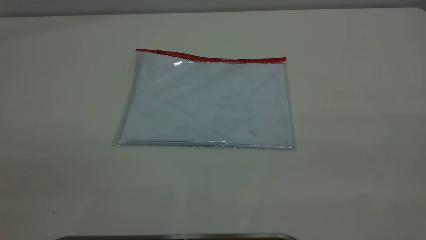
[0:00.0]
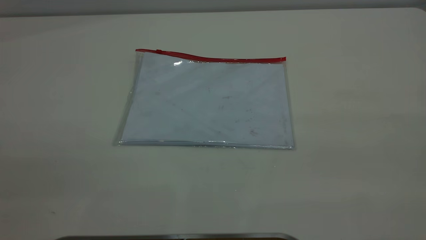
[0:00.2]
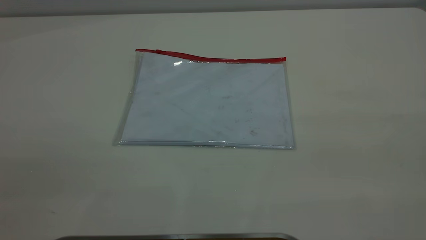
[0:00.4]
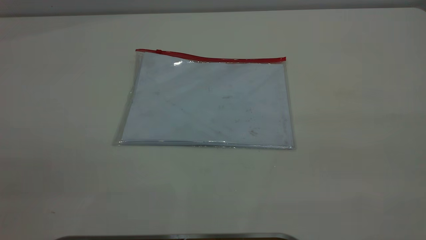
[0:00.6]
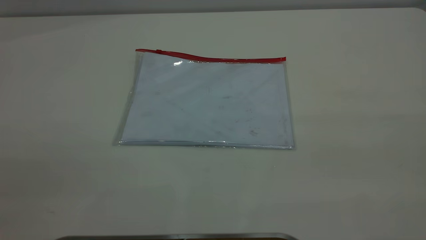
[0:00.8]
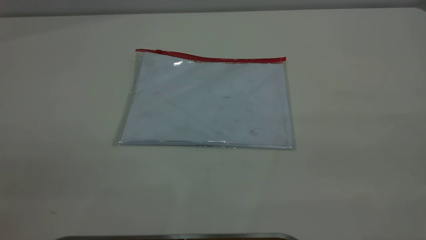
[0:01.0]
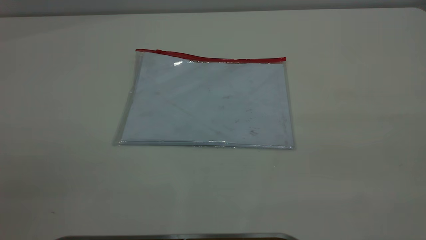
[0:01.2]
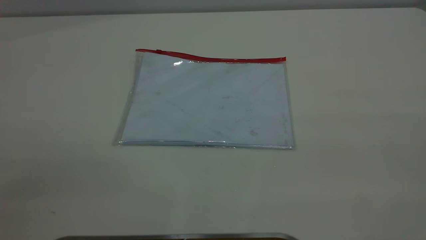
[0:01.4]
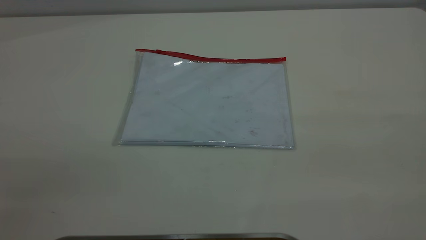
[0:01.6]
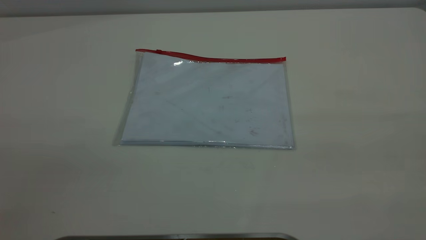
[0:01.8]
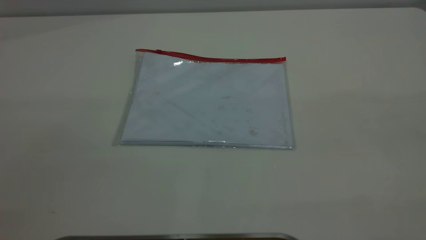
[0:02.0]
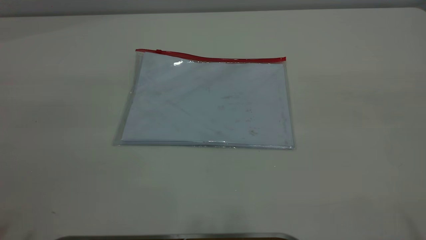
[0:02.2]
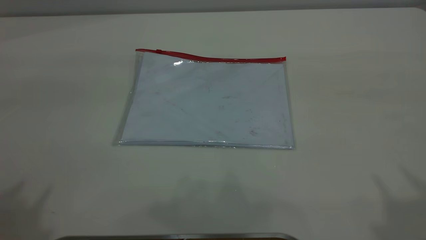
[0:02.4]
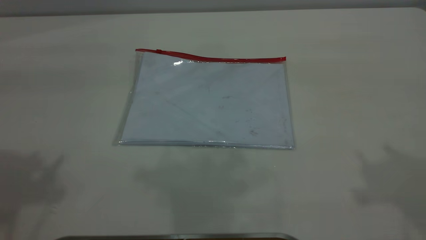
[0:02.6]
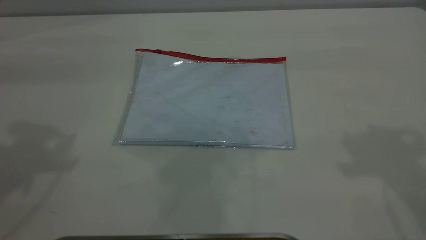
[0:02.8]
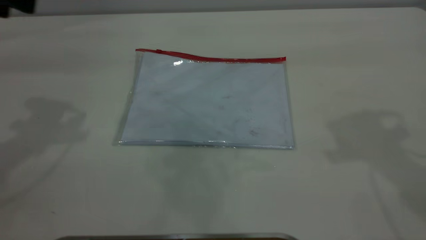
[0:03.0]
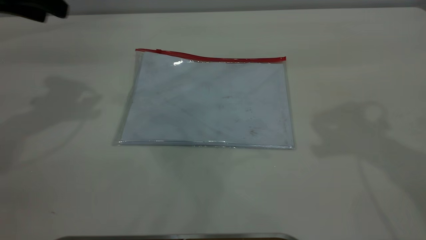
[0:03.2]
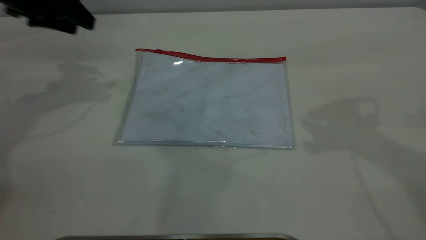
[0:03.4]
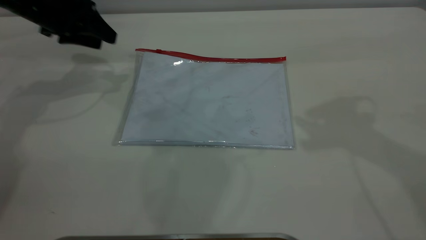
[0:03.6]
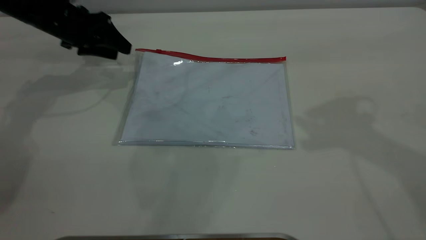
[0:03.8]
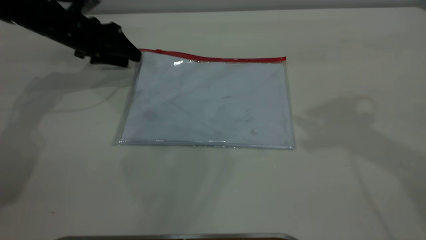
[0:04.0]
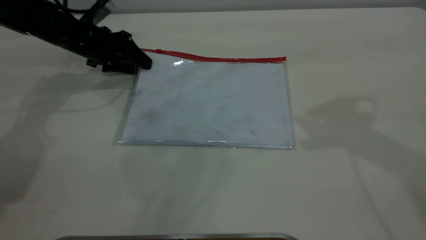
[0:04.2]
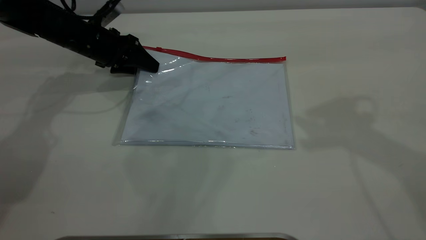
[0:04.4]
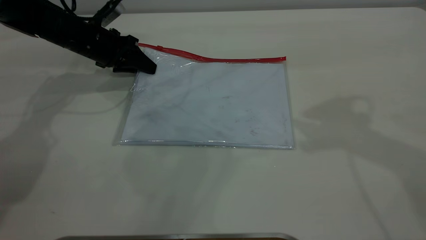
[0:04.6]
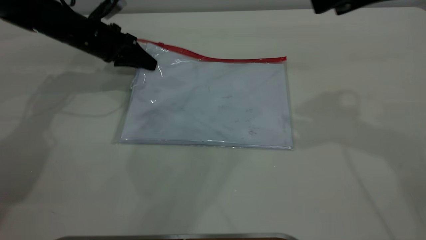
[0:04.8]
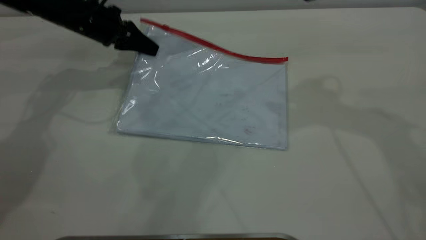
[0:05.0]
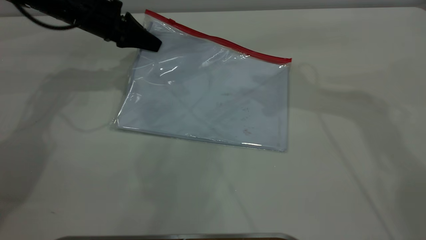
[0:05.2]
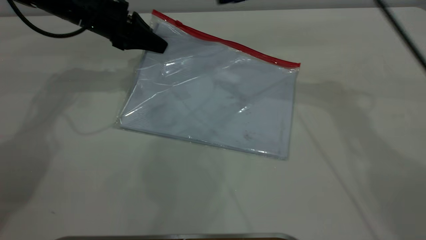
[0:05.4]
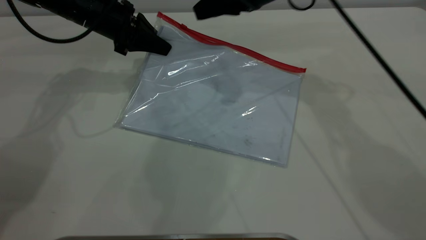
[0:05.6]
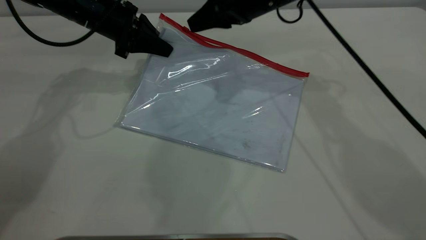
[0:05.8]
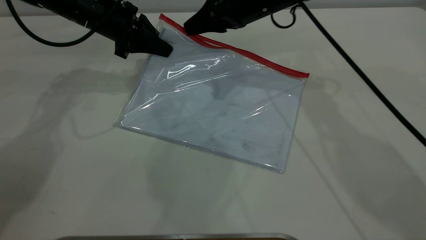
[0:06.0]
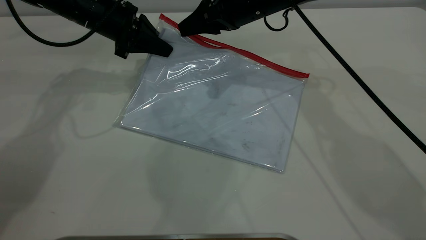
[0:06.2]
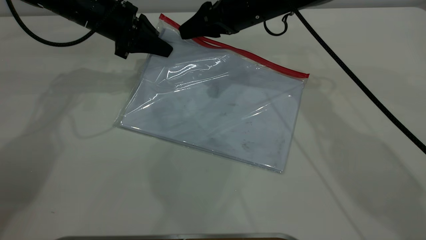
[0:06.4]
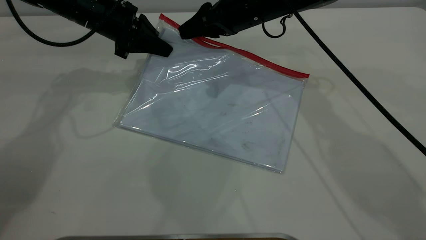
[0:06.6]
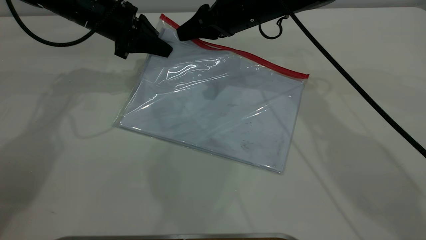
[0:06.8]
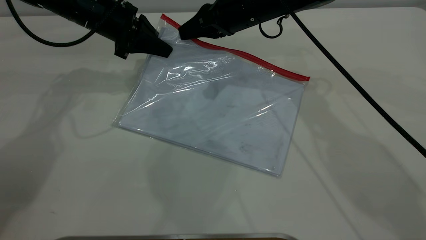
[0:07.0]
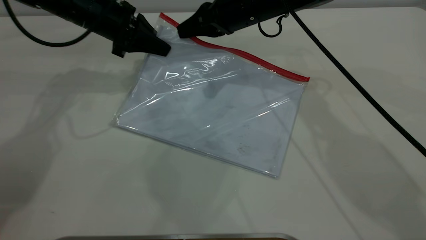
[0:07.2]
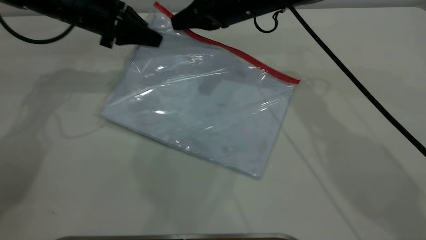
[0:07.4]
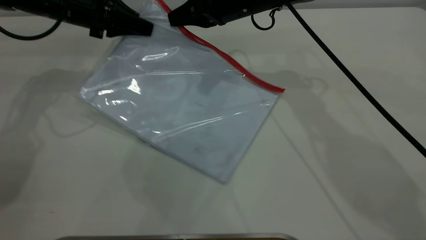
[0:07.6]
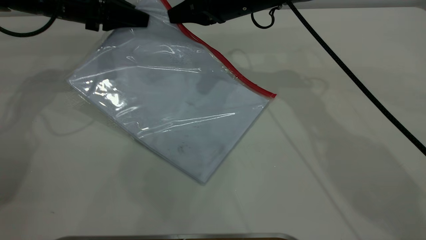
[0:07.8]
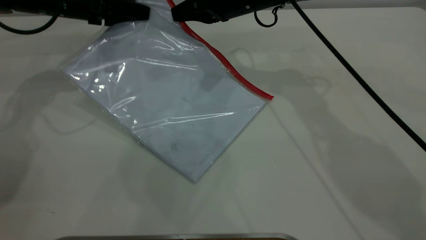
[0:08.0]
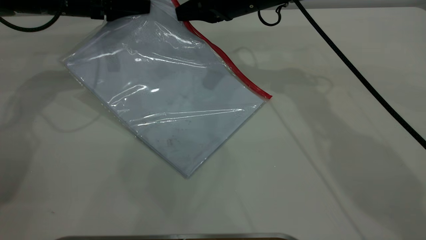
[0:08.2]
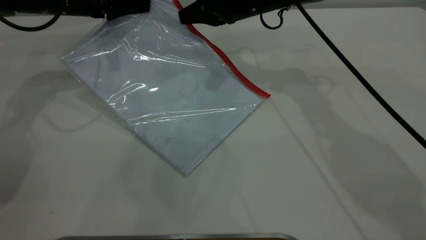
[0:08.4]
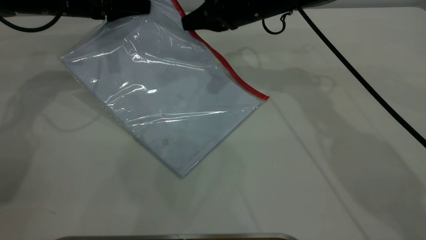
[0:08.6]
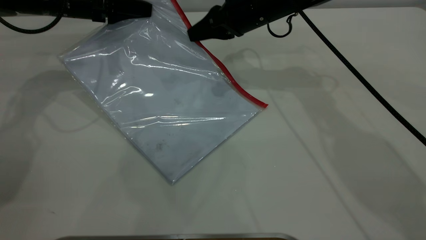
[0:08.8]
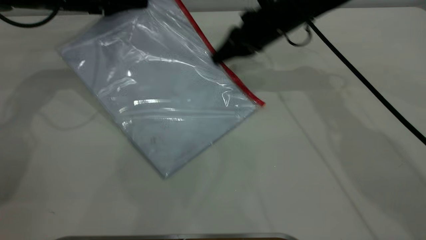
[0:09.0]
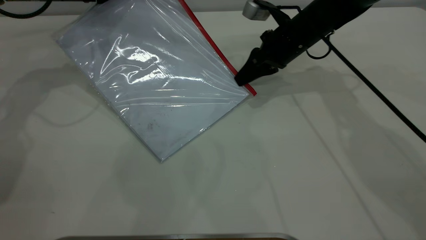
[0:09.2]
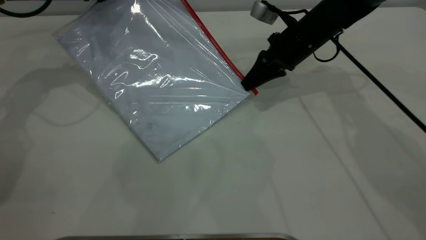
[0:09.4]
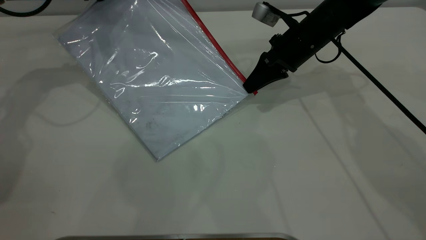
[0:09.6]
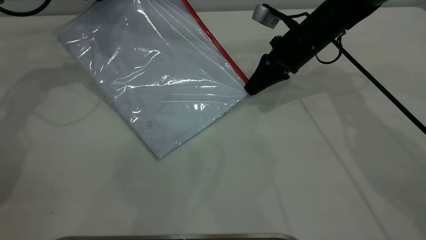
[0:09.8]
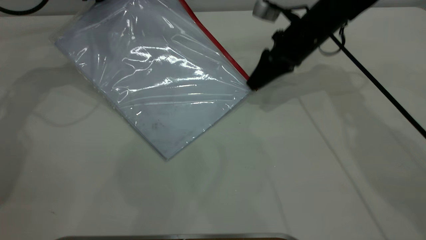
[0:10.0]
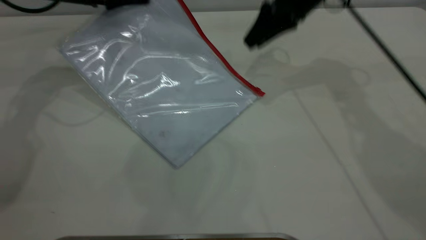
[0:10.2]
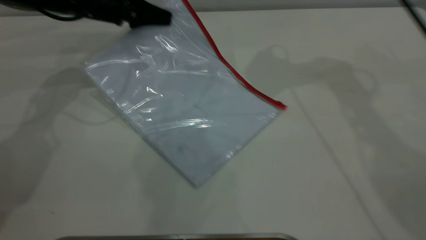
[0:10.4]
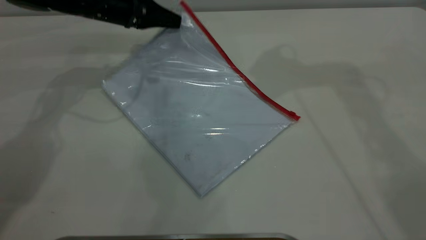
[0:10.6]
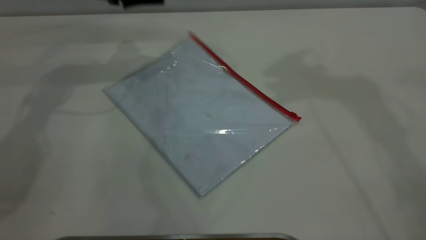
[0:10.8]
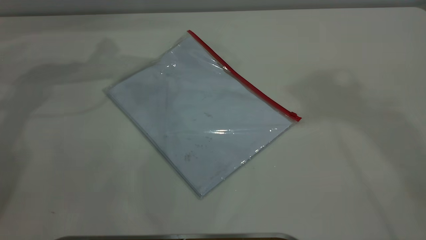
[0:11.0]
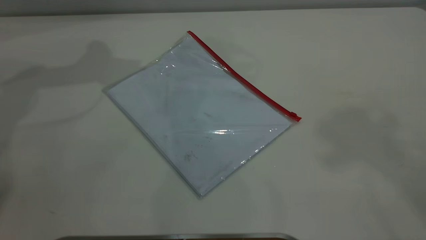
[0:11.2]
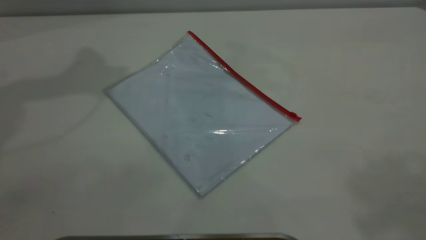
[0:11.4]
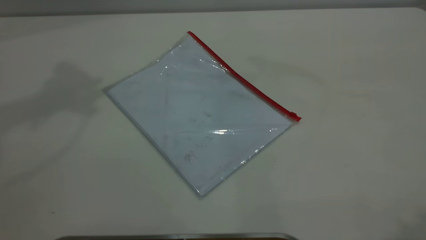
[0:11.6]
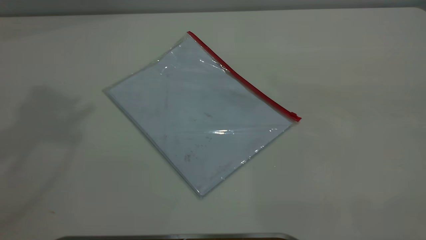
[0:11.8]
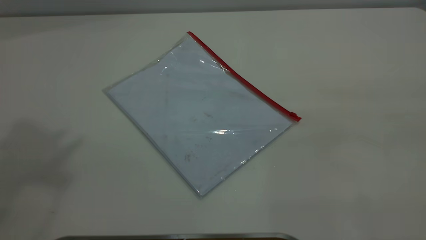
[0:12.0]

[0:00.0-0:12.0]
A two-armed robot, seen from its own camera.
Step, 0:00.0 to 0:04.6: Pick up the transparent plastic bag with the left gripper.
Step, 0:05.0 to 0:10.0: Pulling up the zipper on the transparent plastic bag with the right gripper to close it.
Step, 0:10.2 to 0:10.6: Place the transparent plastic bag.
0:00.0 to 0:01.6: Both grippers stay put.
0:03.0 to 0:04.4: The left gripper travels downward and forward by approximately 25 cm.
0:04.4 to 0:06.0: The left gripper is displaced upward by about 5 cm, and closes up. Meanwhile the right gripper is displaced downward, forward and to the left by about 30 cm.
0:06.0 to 0:07.6: The right gripper closes its fingers, while the left gripper moves roughly 5 cm.
0:07.6 to 0:09.0: The right gripper is displaced to the right and downward by some 10 cm.
0:09.0 to 0:10.4: The right gripper goes some 20 cm upward, and opens up, while the left gripper heads to the right, covering about 5 cm.
0:10.4 to 0:12.0: The left gripper heads upward and backward, covering approximately 50 cm, and opens up, while the right gripper travels backward by about 40 cm.

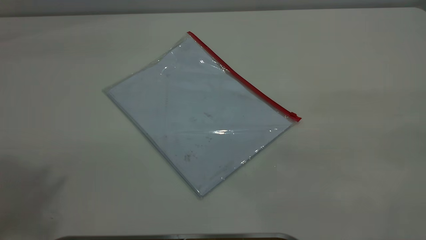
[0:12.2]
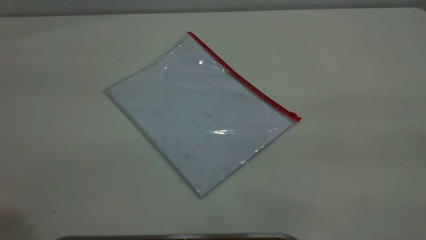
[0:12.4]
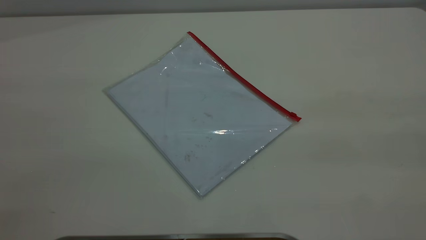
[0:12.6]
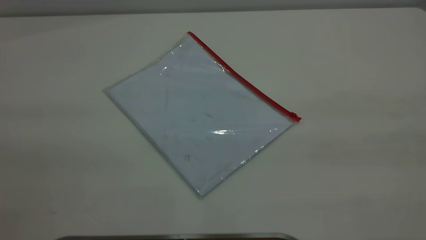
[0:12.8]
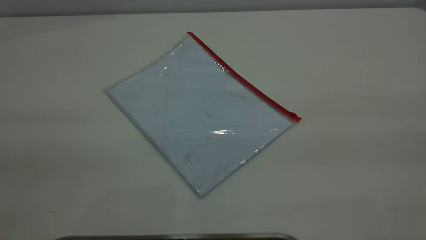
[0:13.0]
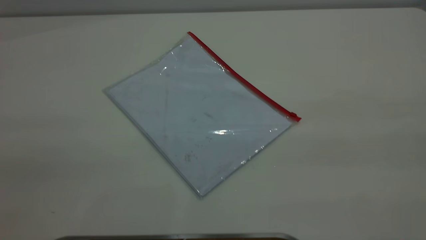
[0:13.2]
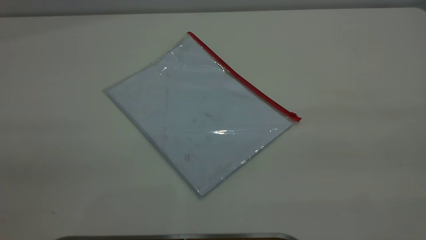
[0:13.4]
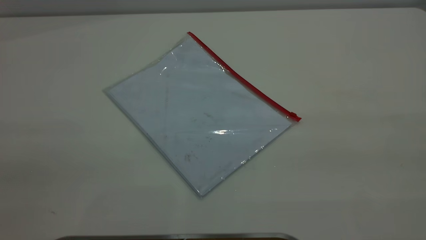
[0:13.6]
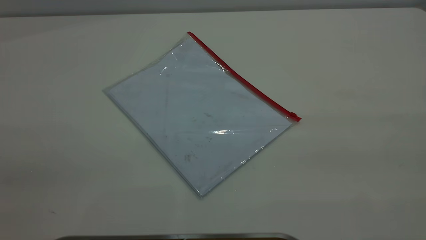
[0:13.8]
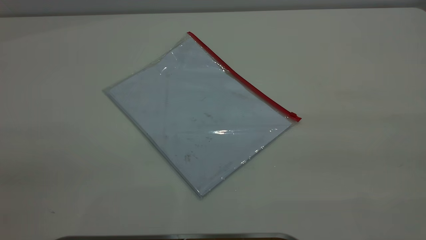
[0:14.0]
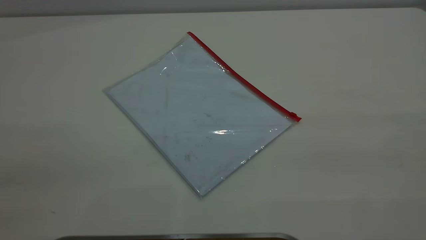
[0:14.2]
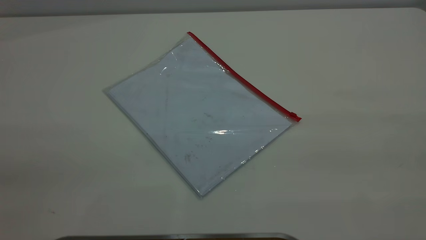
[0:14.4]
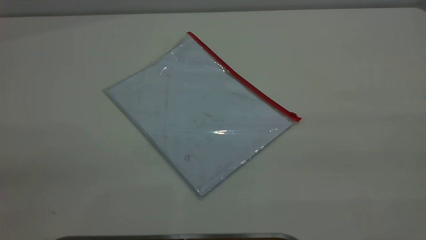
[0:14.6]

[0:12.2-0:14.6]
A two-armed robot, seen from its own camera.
0:13.4 to 0:14.6: Both grippers stay put.

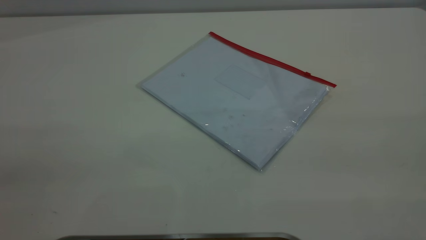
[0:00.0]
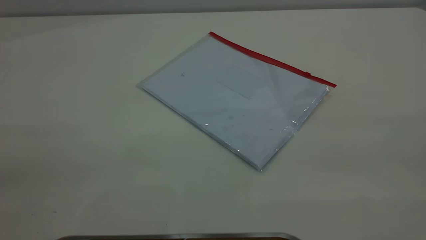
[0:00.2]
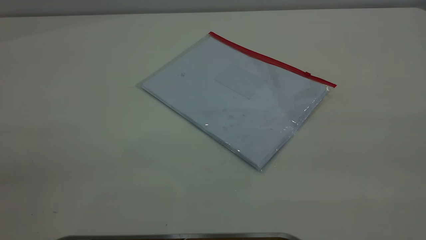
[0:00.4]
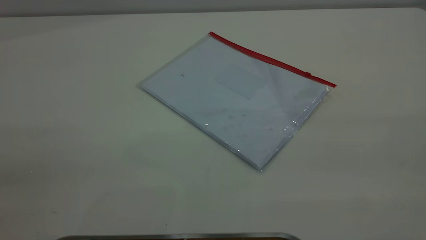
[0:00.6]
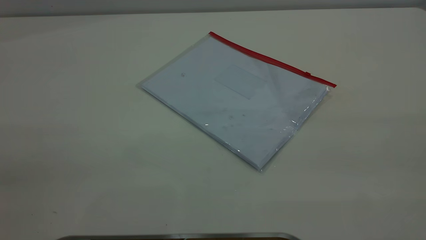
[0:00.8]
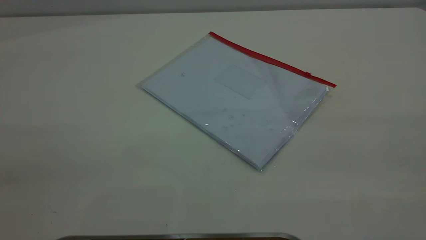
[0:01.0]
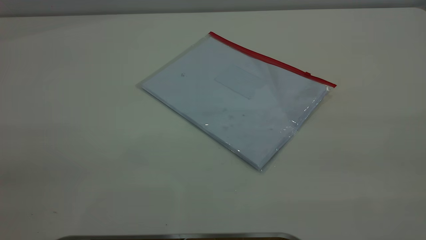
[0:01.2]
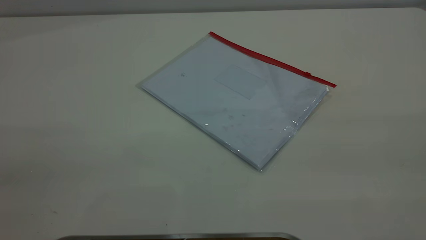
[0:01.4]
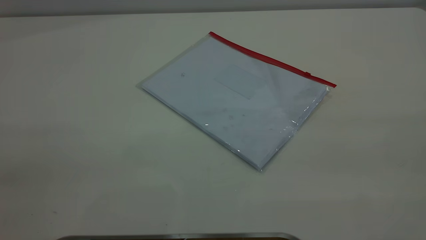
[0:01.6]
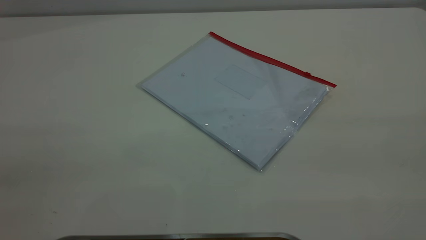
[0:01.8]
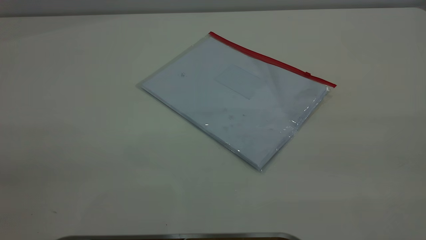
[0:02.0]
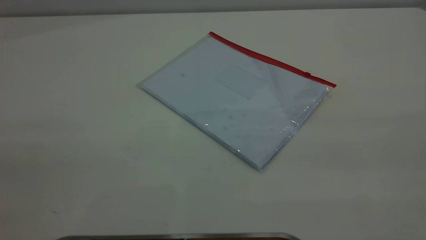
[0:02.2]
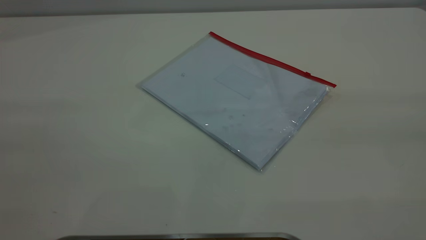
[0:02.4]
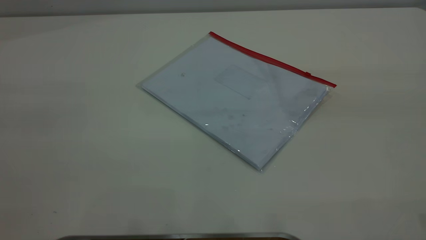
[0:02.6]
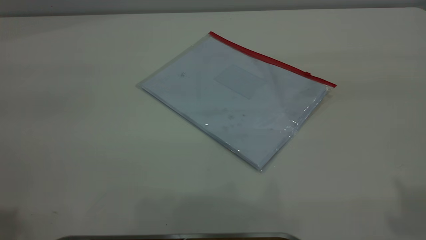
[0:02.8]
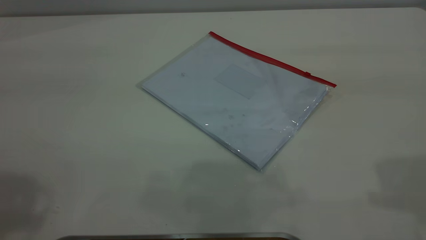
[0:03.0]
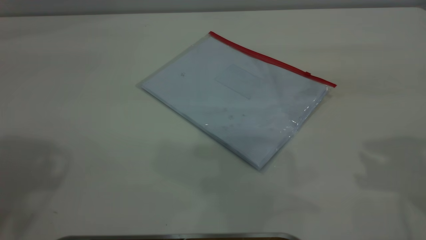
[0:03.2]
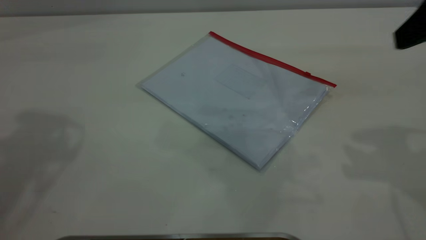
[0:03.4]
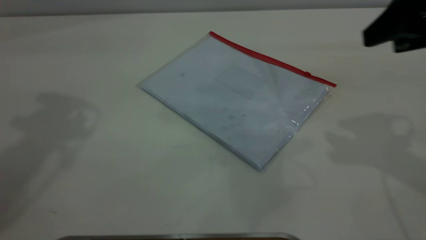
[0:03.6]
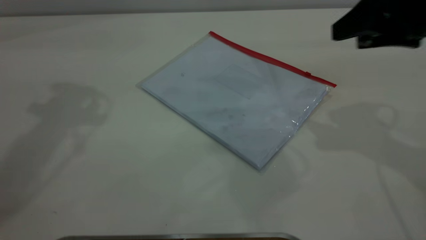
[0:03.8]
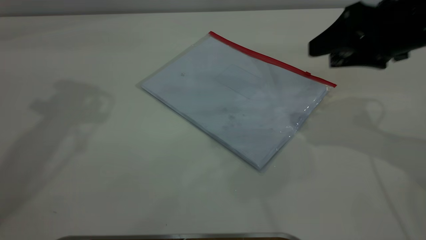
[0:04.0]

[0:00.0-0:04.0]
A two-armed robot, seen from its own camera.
0:00.0 to 0:01.4: Neither gripper changes place.
0:02.6 to 0:04.0: The right gripper shifts about 30 cm forward and downward.
